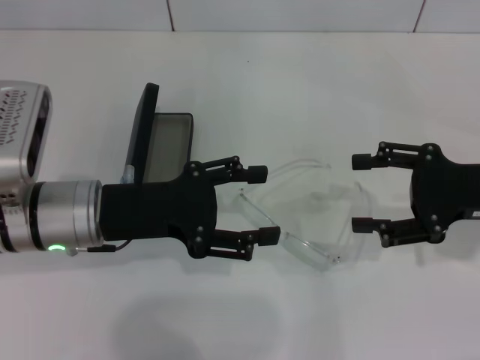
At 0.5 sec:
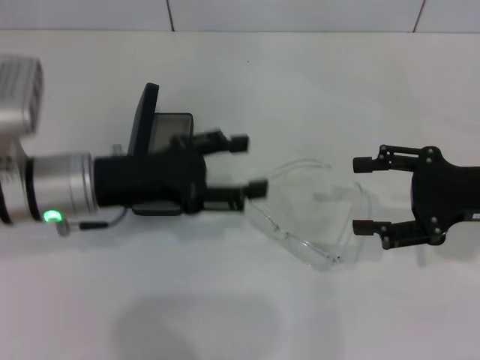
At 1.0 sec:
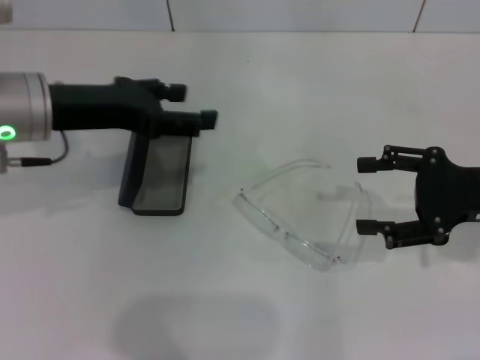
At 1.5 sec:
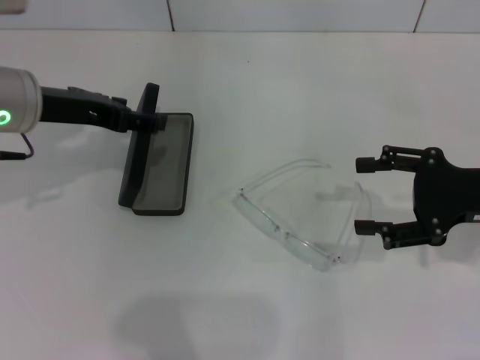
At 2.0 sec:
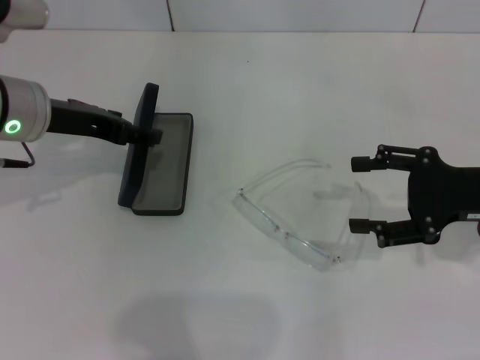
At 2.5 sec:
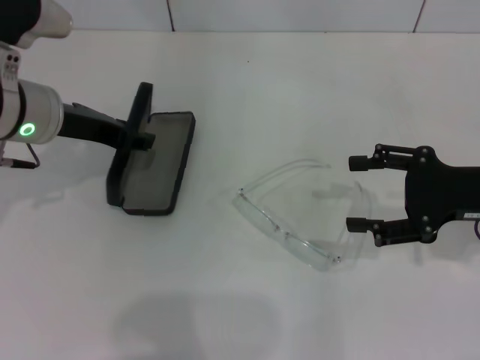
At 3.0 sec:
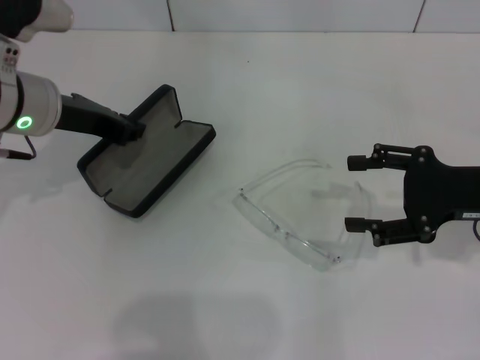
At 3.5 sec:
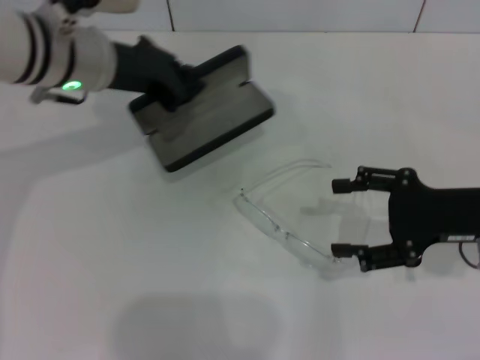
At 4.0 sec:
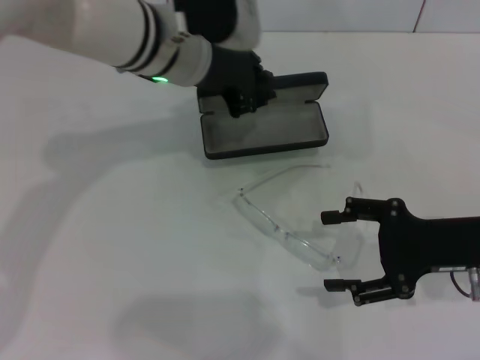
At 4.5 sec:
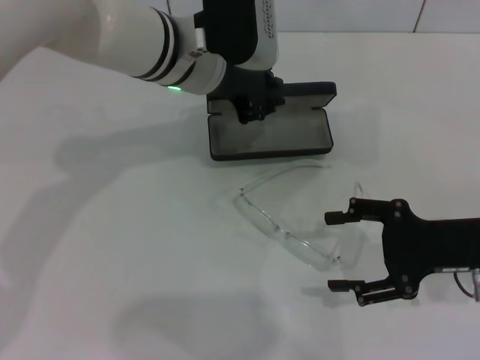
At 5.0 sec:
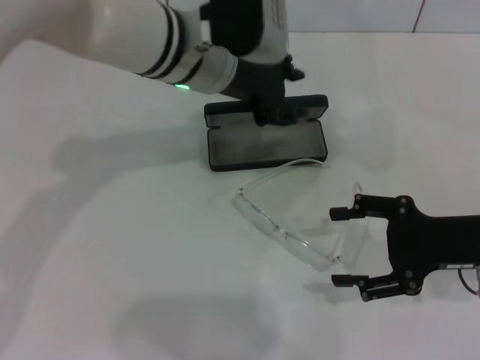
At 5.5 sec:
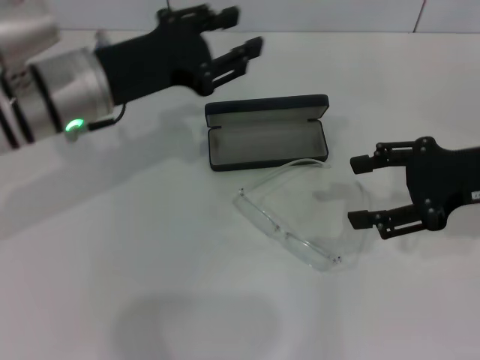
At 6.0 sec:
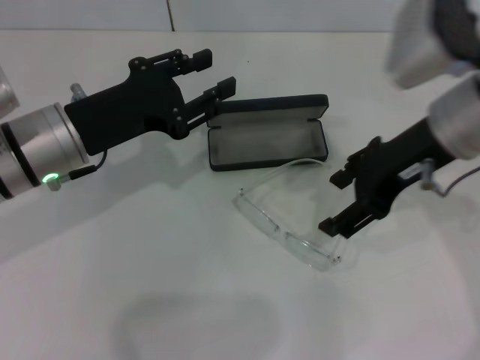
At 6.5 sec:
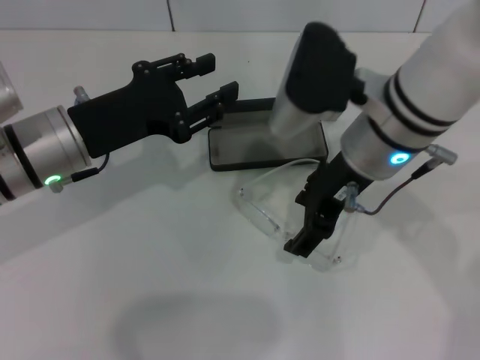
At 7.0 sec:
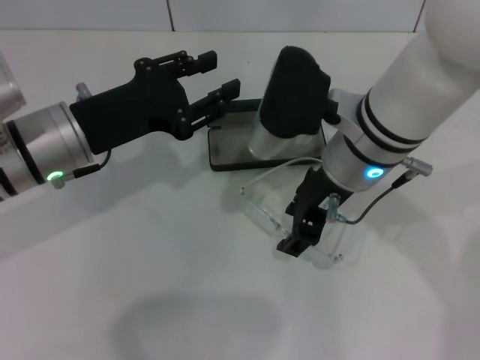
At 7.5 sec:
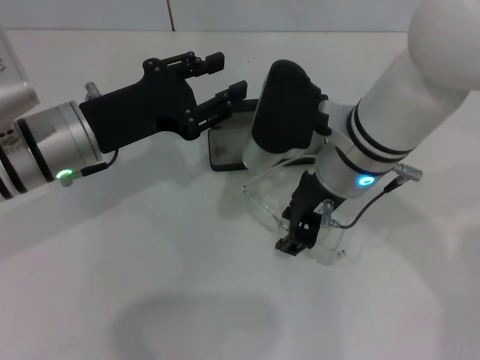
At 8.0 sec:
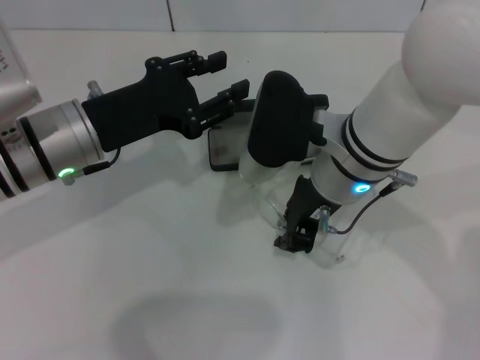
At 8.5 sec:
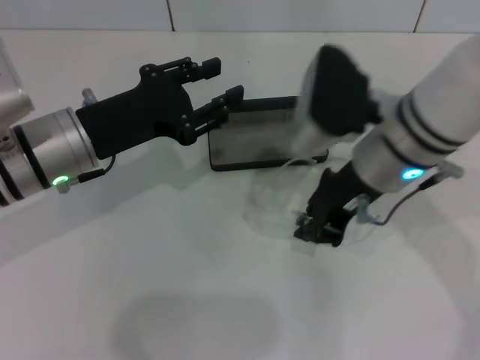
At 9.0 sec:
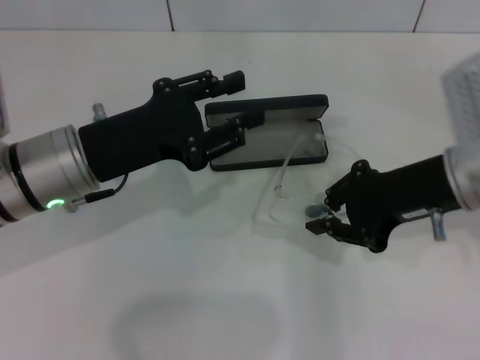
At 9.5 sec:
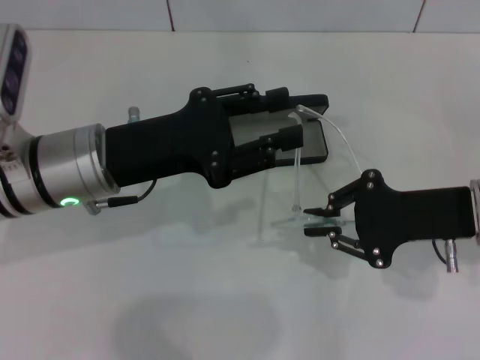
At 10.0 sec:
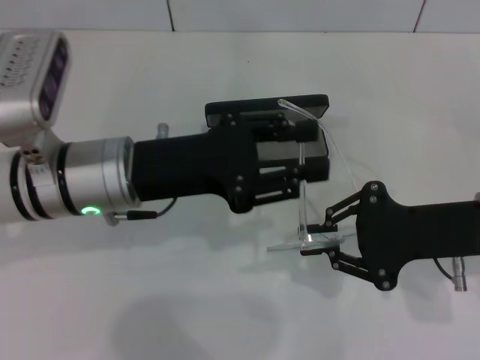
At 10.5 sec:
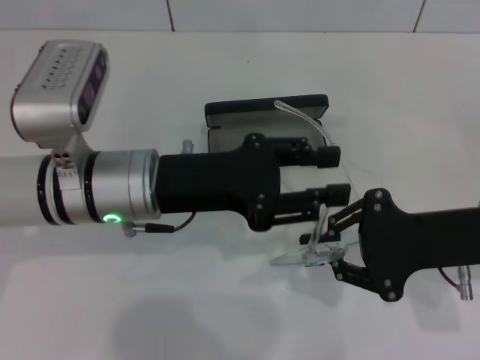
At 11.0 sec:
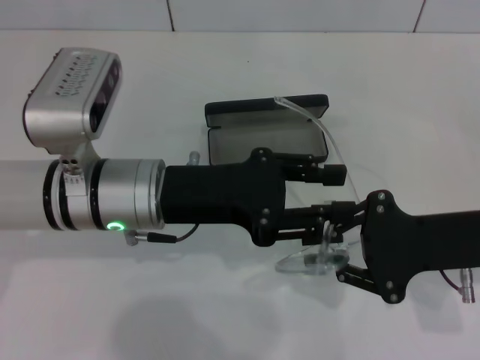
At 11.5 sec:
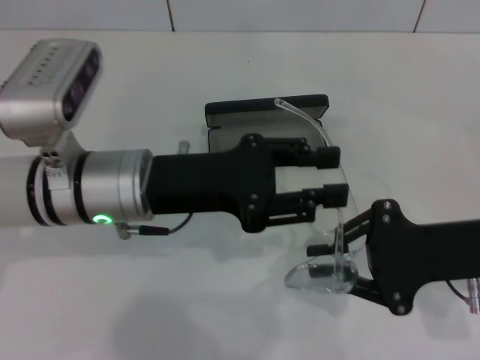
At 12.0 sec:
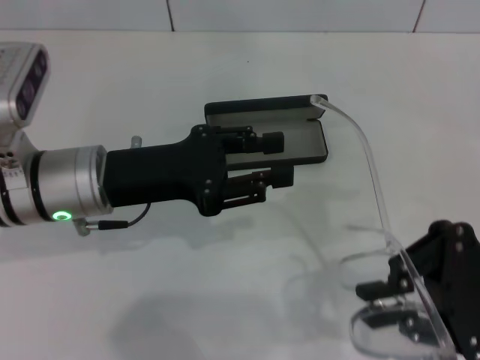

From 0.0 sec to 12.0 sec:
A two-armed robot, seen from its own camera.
Step, from 0.0 sec to 2.5 sec: Grab the glasses case with your left hand.
Step, from 3.0 sec to 4.5 sec: Place the glasses case in the center of the table with your left hand.
Step, from 5.0 sec to 7.5 sec: Grab the eyeglass frame with your right hand.
From 0.0 sec to 2.0 sec: The left gripper shifts some 10 cm forward and upward.
From 2.0 sec to 4.0 sec: The left gripper goes roughly 15 cm to the right, and closes its fingers.
From 4.0 sec to 6.0 sec: The right gripper is displaced upward, to the left and forward by roughly 15 cm. Meanwhile the left gripper moves to the left, backward and downward, approximately 15 cm, and opens.
From 6.0 sec to 8.0 sec: The right gripper travels to the left and downward by about 10 cm, and closes.
From 8.0 sec to 10.0 sec: The right gripper travels to the right by some 15 cm.
From 10.0 sec to 12.0 sec: The right gripper changes place by some 5 cm.

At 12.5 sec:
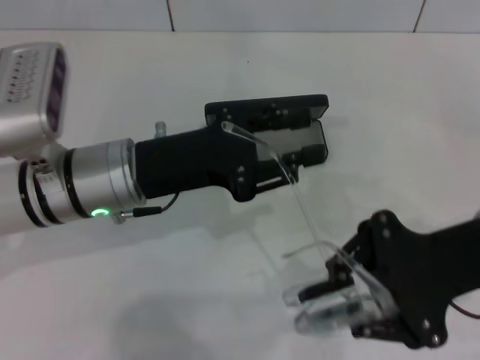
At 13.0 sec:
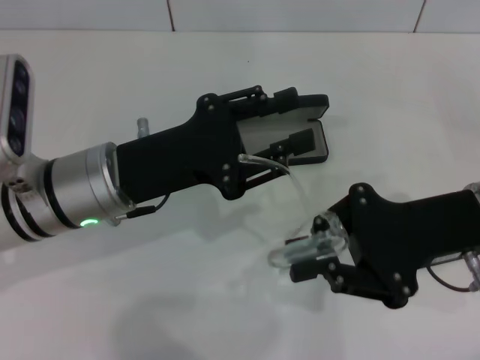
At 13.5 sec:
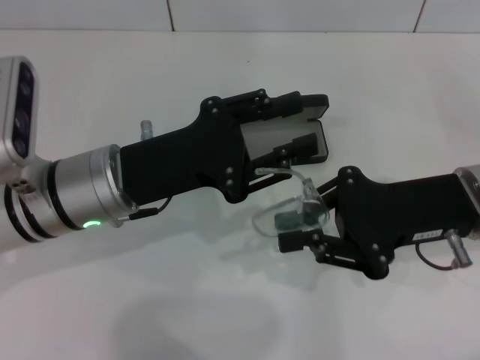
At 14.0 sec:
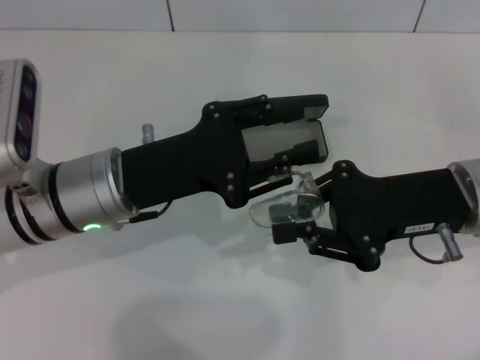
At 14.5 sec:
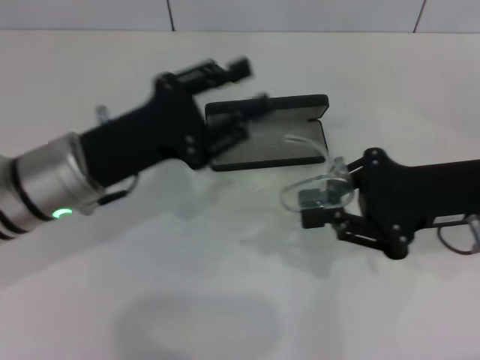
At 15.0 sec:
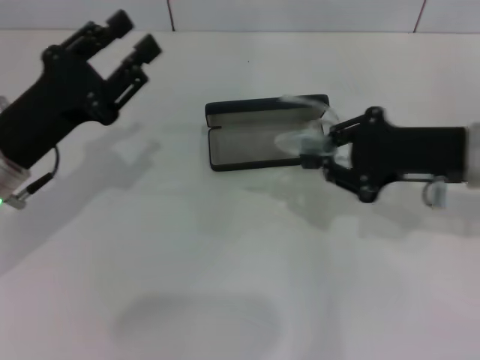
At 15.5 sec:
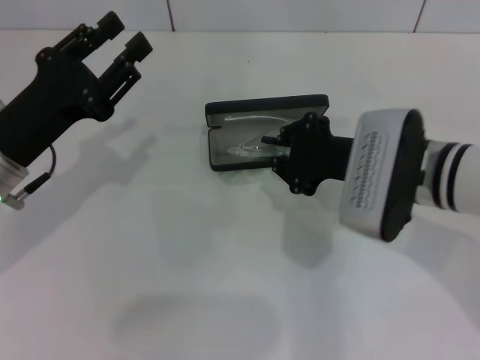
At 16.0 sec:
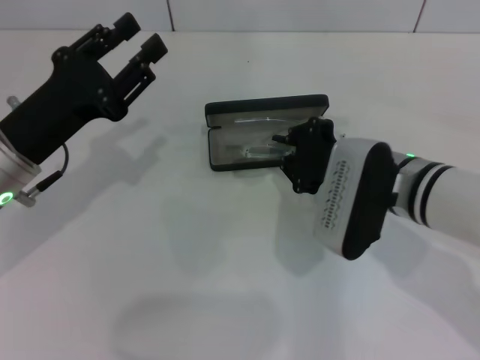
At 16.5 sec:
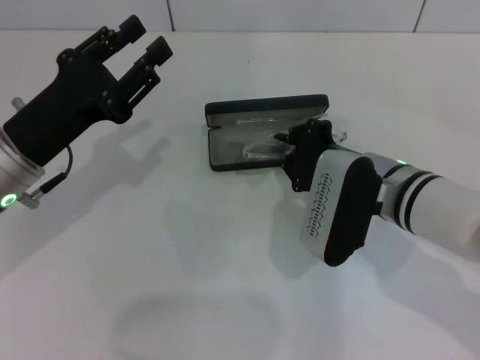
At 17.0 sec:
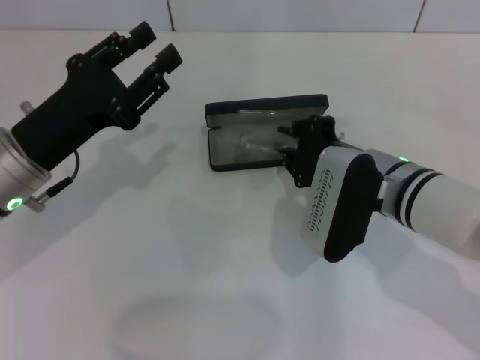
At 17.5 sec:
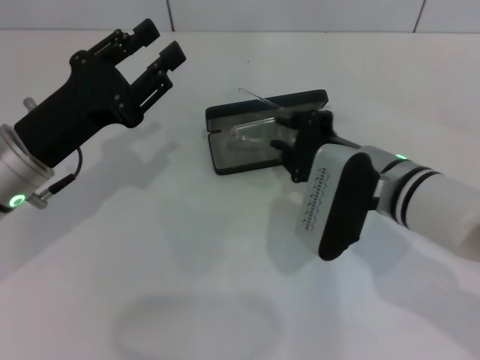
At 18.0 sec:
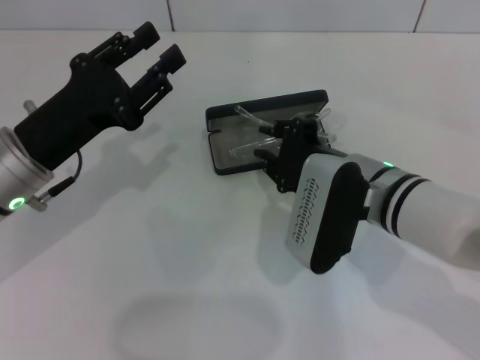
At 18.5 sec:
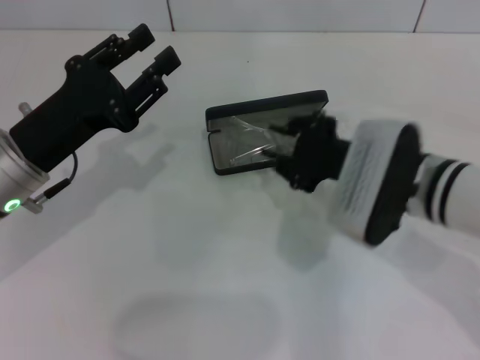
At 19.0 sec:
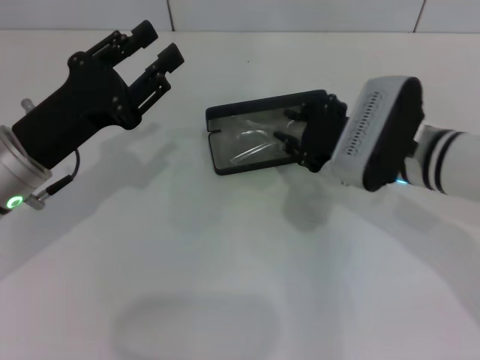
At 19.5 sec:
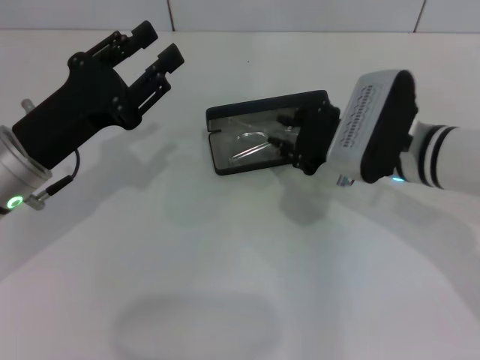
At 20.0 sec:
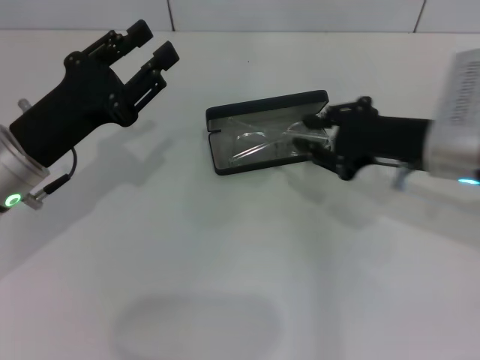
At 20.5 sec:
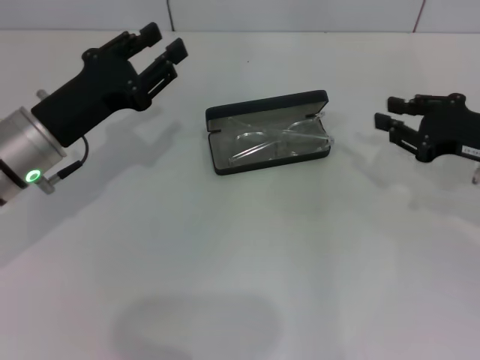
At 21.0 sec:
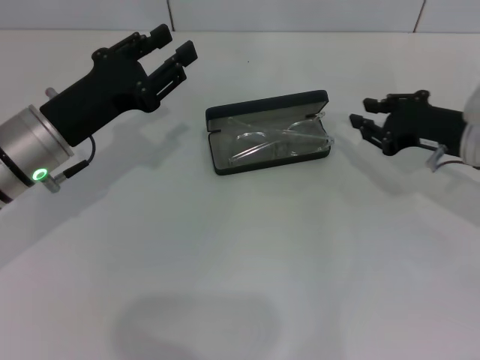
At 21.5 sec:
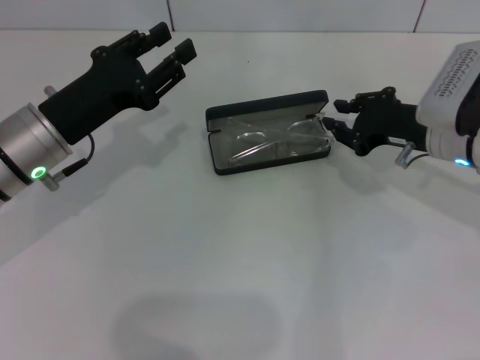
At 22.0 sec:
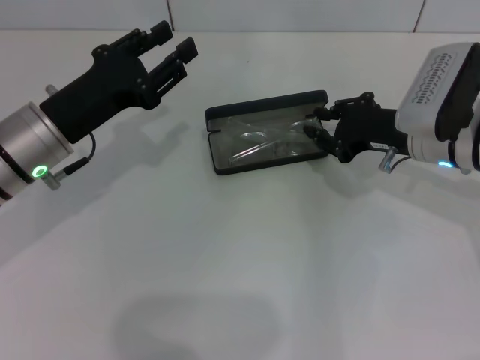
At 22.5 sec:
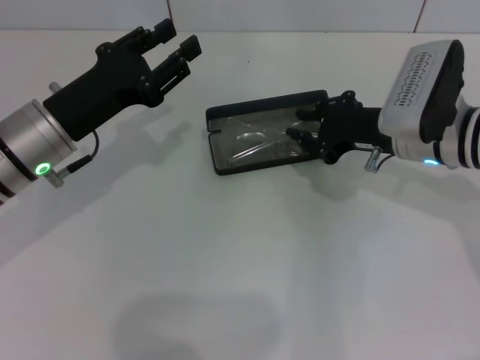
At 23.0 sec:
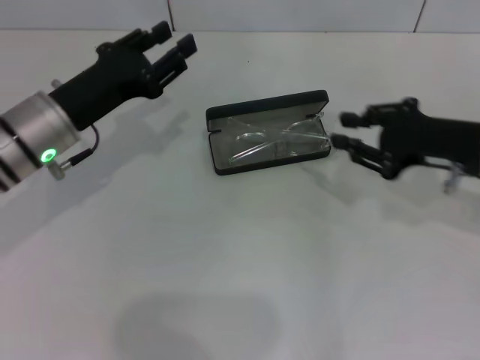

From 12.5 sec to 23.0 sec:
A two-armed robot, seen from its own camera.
Step, from 14.5 sec to 19.5 sec: Put the glasses into the case with your right hand.
From 14.5 sec to 16.5 sec: The left gripper is displaced to the left by approximately 5 cm. The right gripper heads to the left and downward, covering some 10 cm.
From 19.0 sec to 21.0 sec: The right gripper is displaced to the right by approximately 10 cm.

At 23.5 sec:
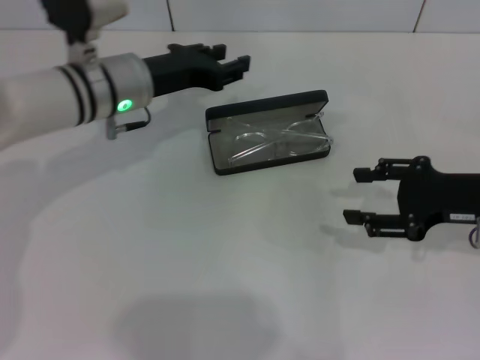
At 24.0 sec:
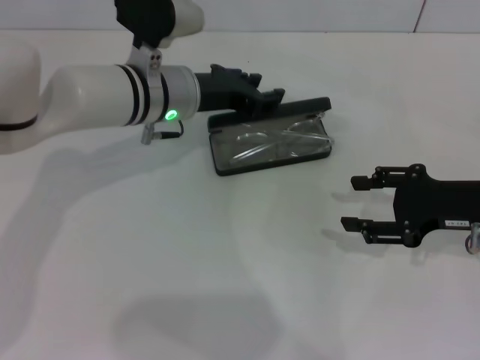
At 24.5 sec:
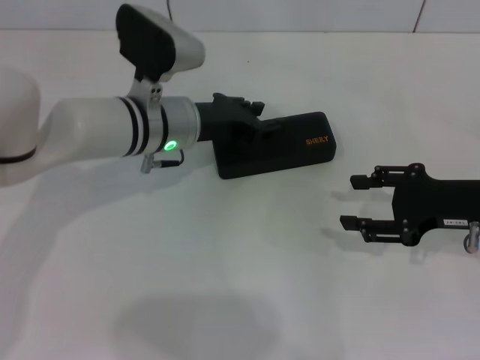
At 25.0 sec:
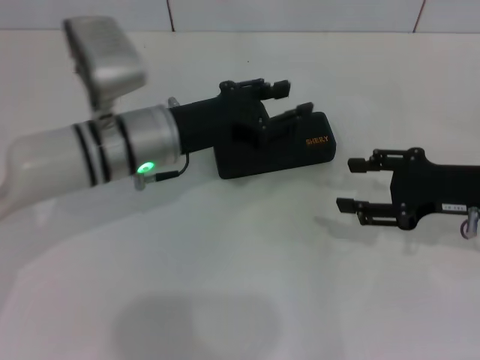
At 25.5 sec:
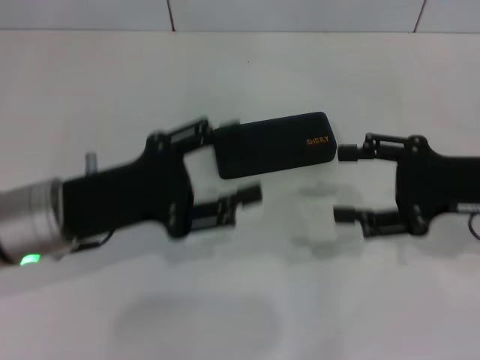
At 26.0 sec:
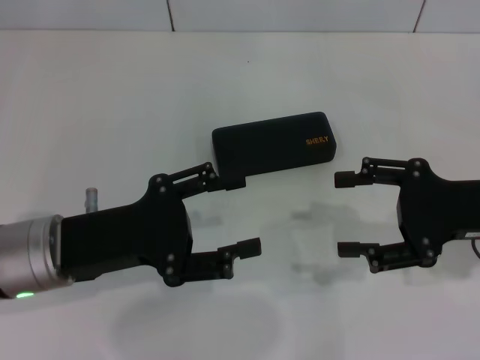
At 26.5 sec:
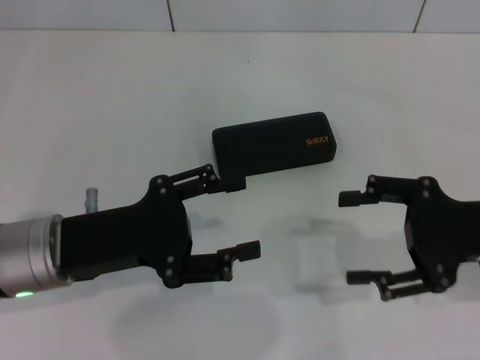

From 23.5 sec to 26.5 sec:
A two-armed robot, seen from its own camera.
From 23.5 sec to 25.0 sec: The left gripper shifts approximately 5 cm backward.
From 25.0 sec to 26.5 sec: The left gripper goes about 15 cm backward and to the left, and opens.
